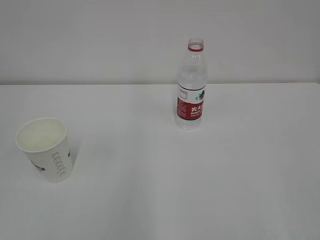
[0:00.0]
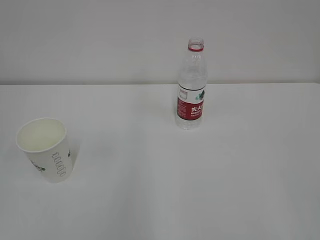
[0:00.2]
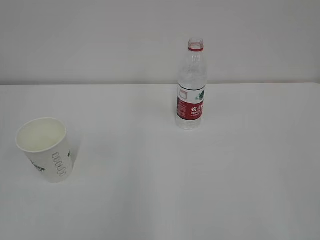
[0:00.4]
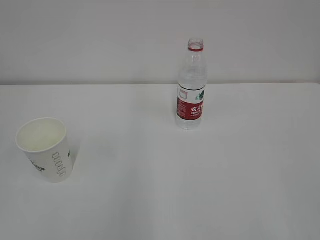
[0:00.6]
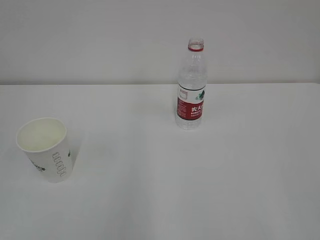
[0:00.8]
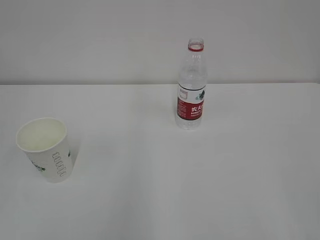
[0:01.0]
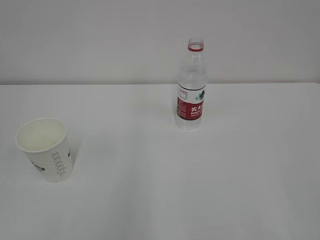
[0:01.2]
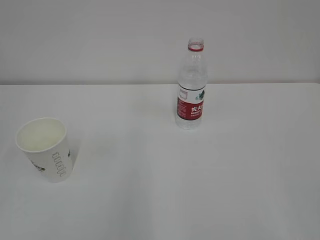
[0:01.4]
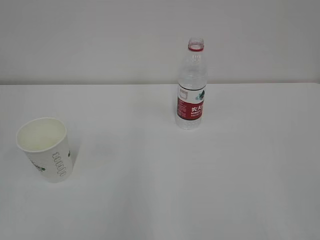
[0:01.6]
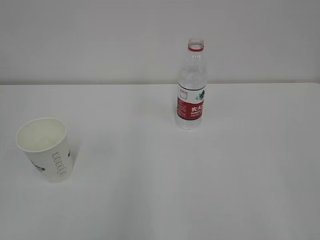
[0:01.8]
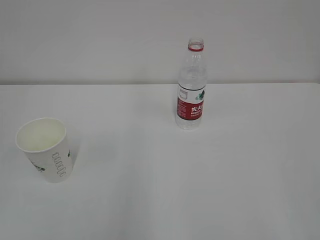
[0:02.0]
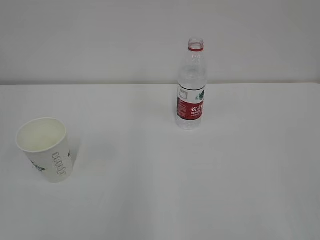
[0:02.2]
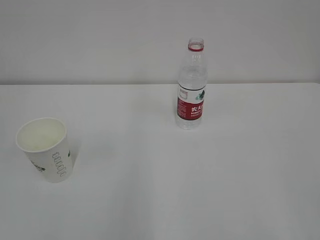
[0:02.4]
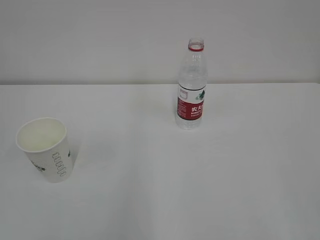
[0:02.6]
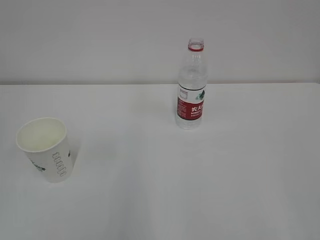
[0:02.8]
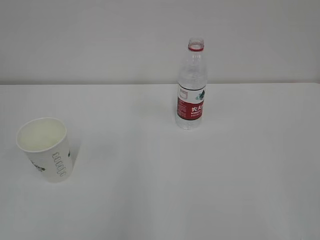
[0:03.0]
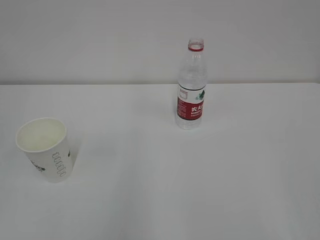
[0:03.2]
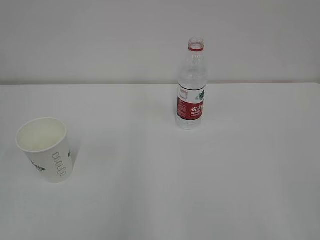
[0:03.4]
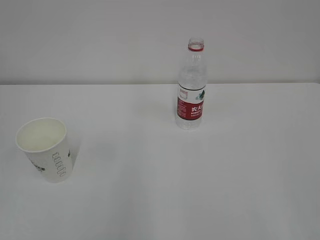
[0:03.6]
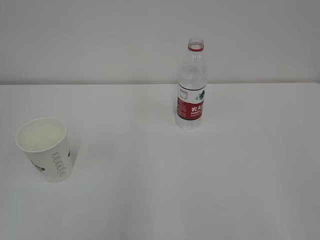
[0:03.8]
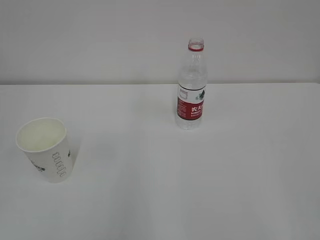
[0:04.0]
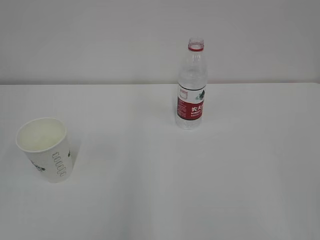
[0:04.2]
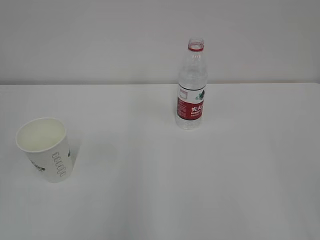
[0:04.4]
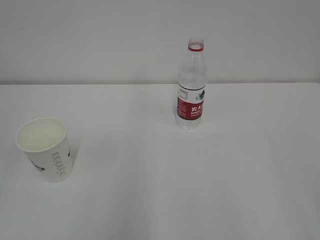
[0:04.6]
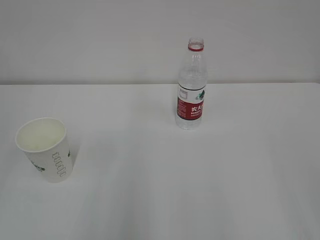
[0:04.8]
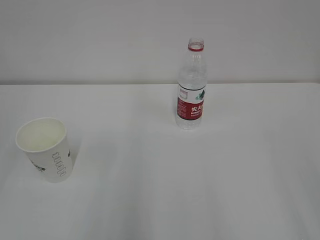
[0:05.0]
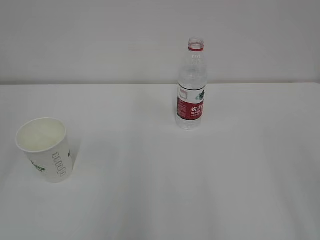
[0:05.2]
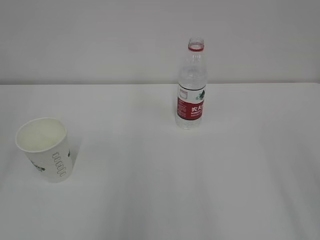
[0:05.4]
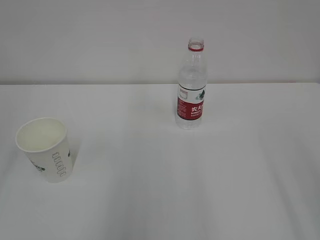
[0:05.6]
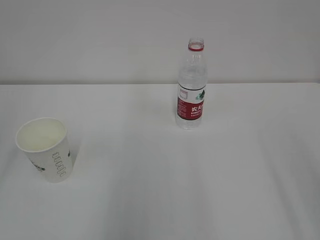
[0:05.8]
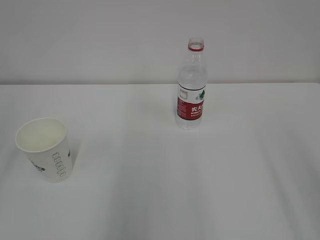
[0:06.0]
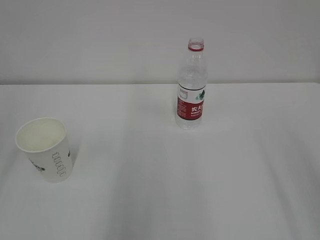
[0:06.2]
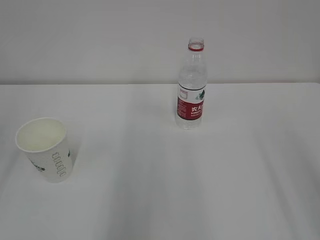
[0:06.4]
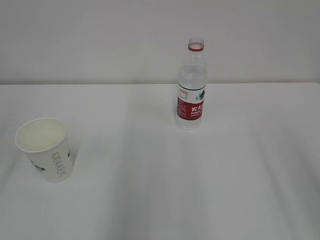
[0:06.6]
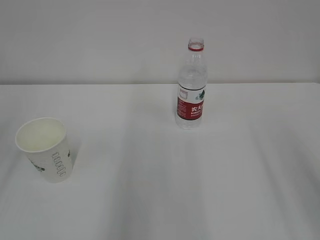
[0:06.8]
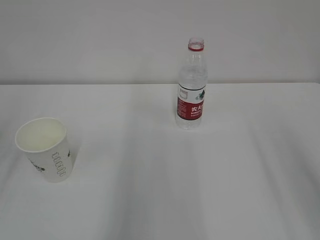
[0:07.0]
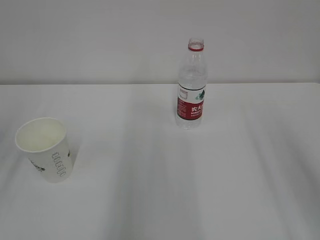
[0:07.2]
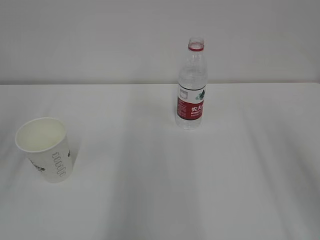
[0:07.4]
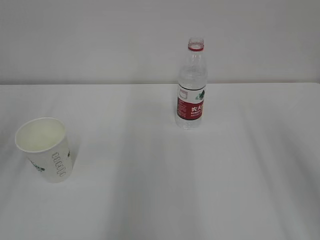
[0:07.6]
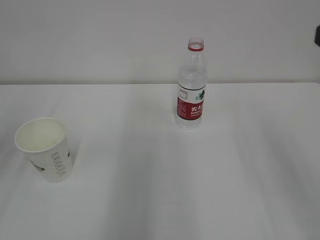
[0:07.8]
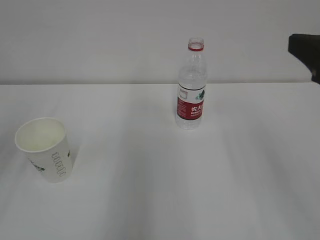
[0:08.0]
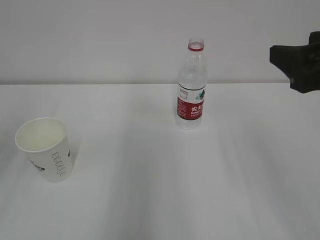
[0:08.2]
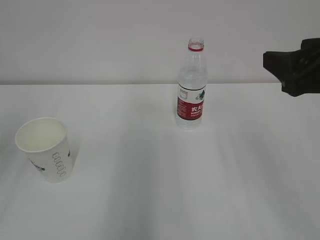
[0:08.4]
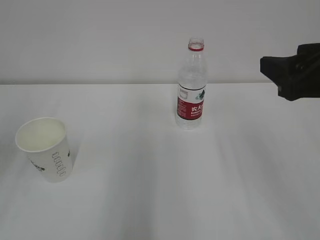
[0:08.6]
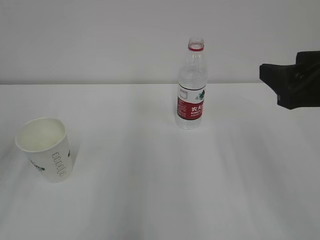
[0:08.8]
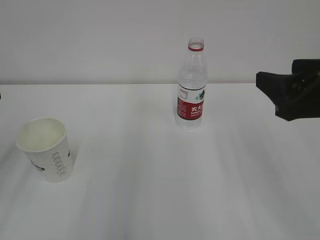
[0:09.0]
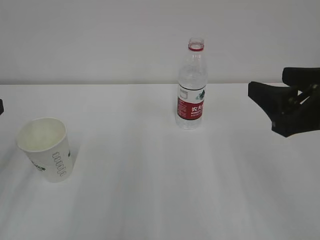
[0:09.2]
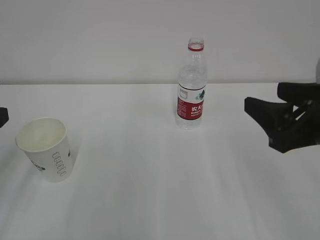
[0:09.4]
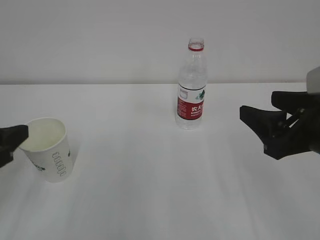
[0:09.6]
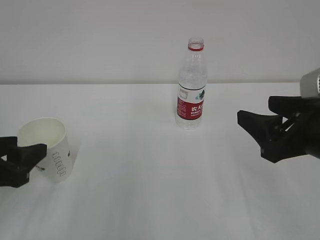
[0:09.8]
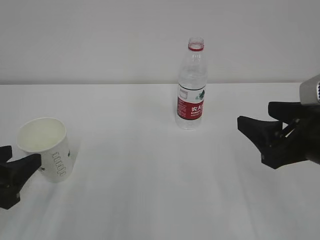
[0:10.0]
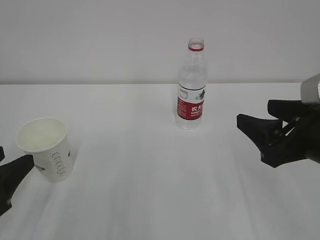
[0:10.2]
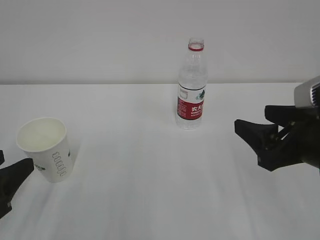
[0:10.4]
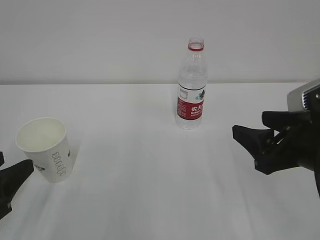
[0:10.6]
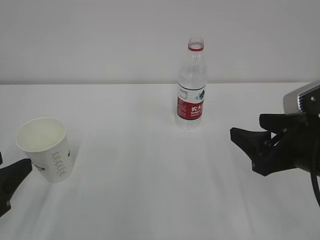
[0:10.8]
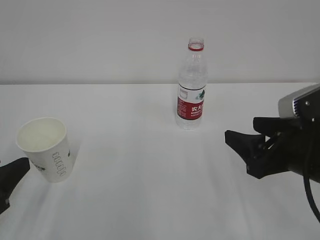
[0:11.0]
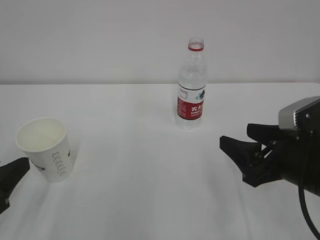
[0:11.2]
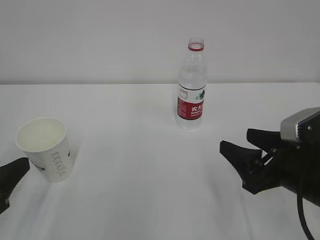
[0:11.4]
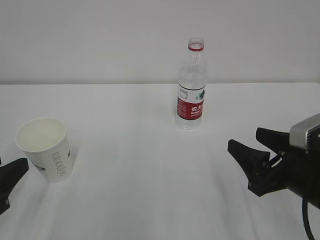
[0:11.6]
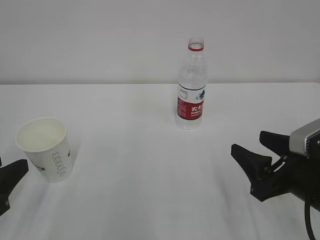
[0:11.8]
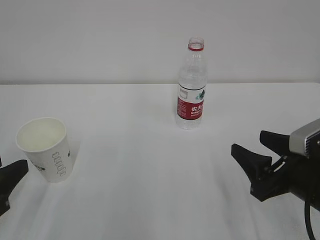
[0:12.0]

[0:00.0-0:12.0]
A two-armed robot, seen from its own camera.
0:01.6 to 0:03.0: Neither gripper changes place.
0:07.6 to 0:09.0: The right gripper shifts some 5 cm downward.
0:09.0 to 0:10.4: The right gripper goes roughly 5 cm downward. The left gripper shifts roughly 10 cm downward.
0:10.4 to 0:12.0: The right gripper travels downward by some 5 cm.

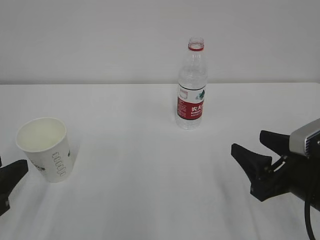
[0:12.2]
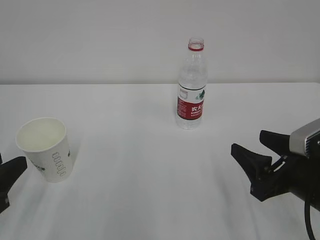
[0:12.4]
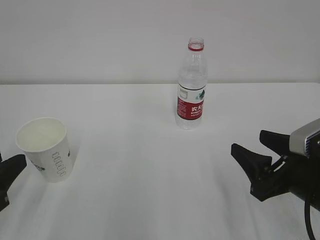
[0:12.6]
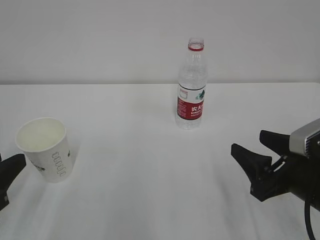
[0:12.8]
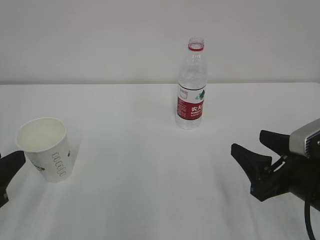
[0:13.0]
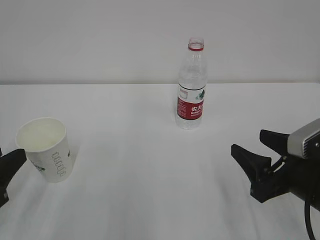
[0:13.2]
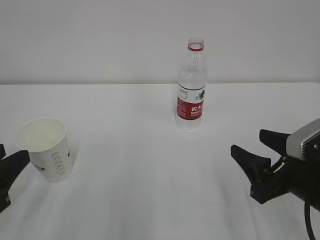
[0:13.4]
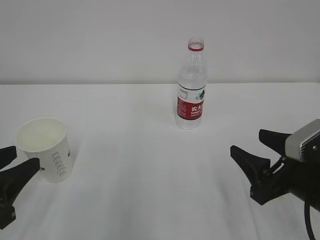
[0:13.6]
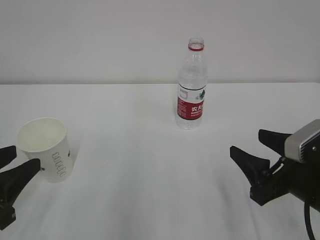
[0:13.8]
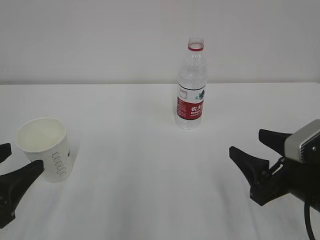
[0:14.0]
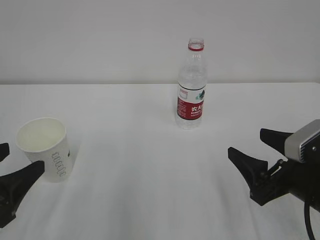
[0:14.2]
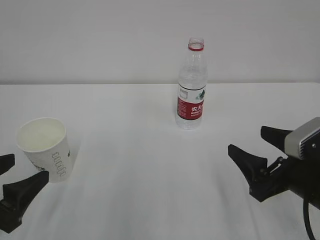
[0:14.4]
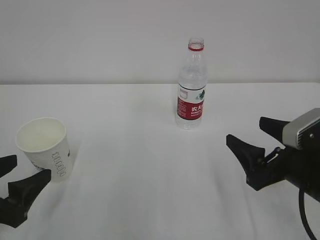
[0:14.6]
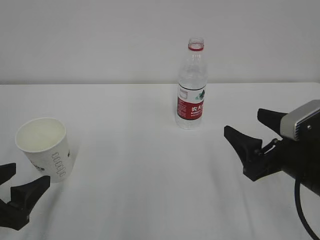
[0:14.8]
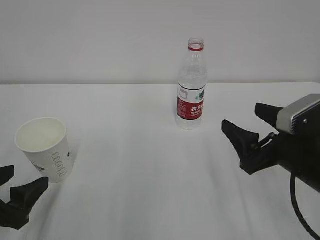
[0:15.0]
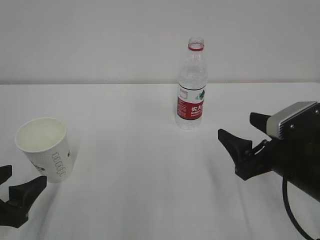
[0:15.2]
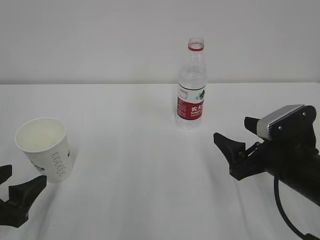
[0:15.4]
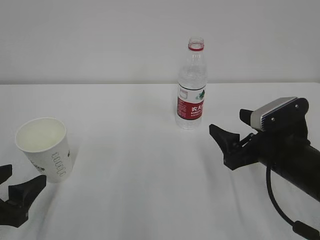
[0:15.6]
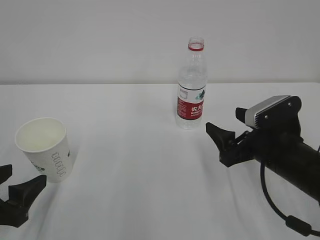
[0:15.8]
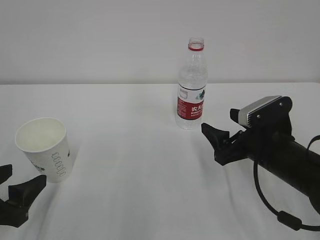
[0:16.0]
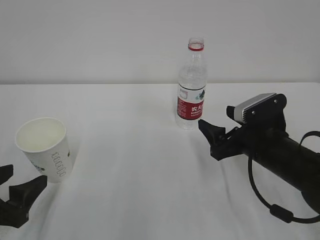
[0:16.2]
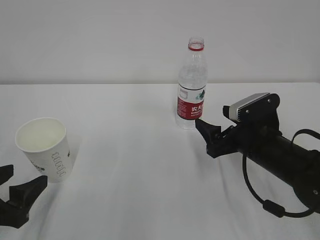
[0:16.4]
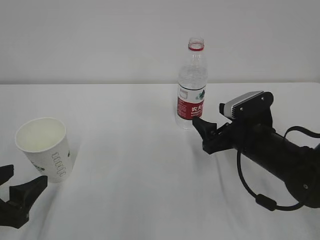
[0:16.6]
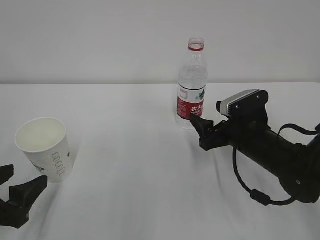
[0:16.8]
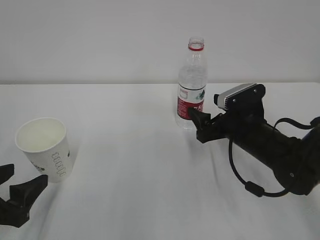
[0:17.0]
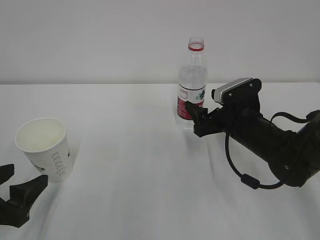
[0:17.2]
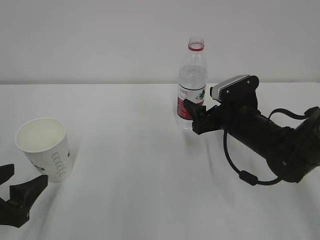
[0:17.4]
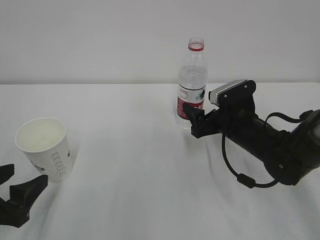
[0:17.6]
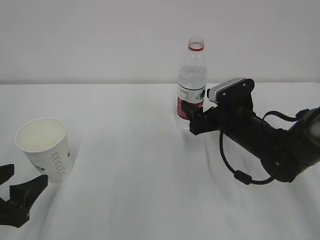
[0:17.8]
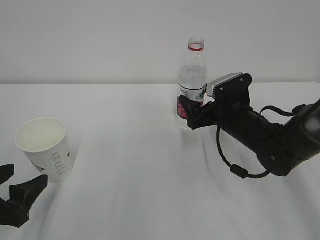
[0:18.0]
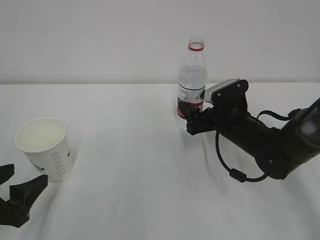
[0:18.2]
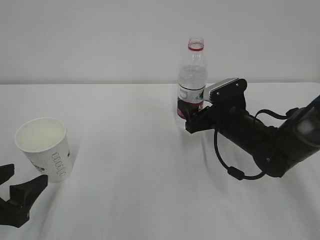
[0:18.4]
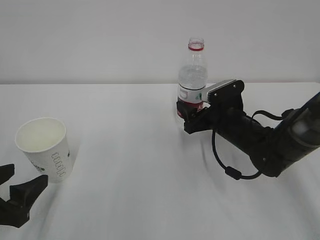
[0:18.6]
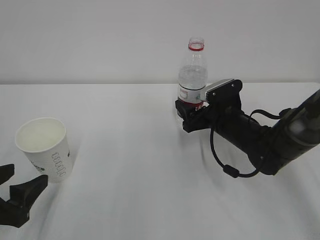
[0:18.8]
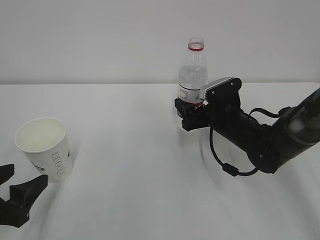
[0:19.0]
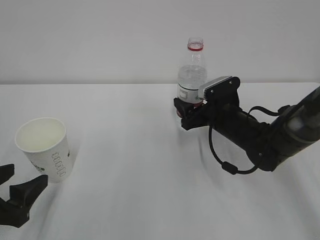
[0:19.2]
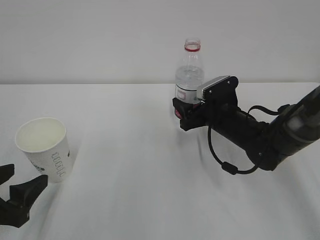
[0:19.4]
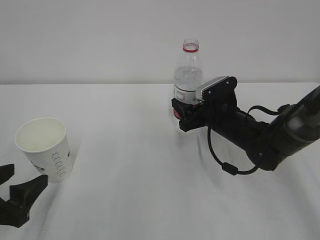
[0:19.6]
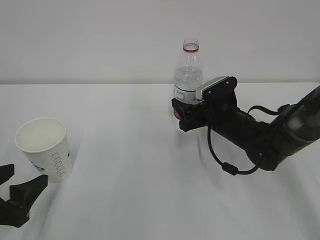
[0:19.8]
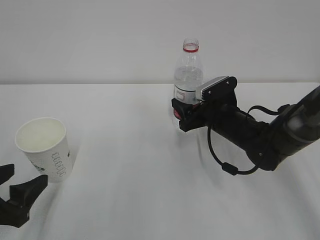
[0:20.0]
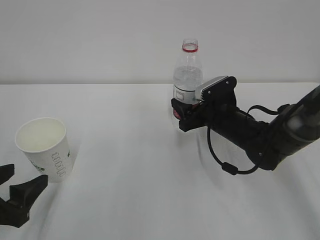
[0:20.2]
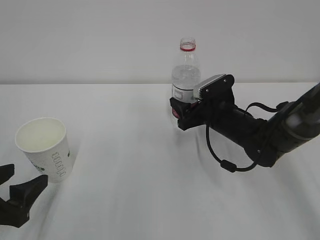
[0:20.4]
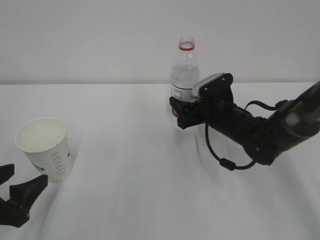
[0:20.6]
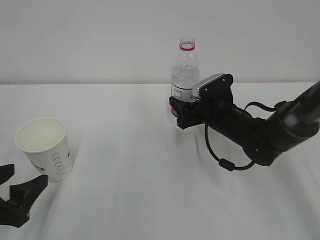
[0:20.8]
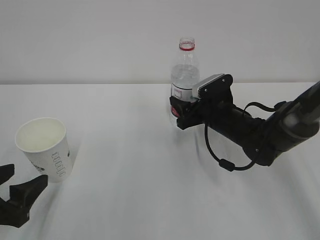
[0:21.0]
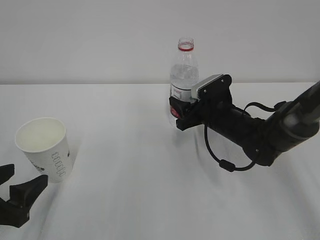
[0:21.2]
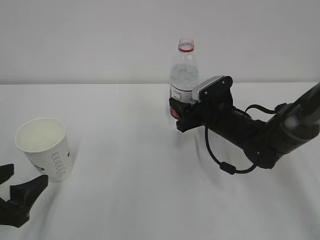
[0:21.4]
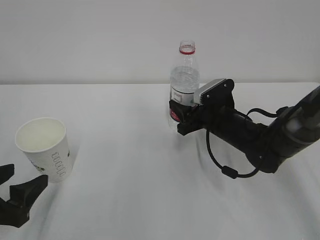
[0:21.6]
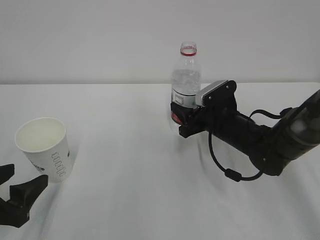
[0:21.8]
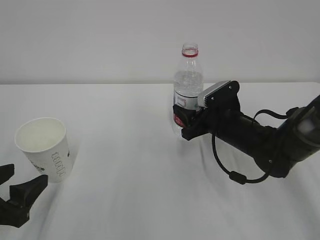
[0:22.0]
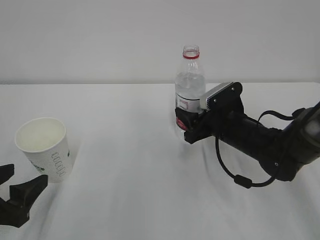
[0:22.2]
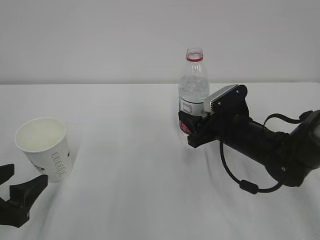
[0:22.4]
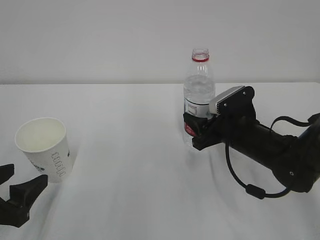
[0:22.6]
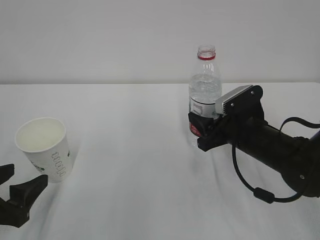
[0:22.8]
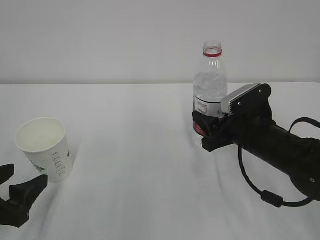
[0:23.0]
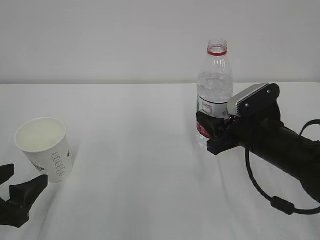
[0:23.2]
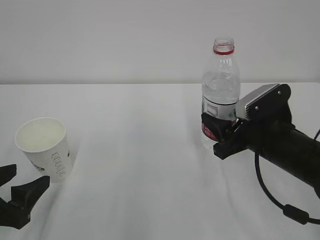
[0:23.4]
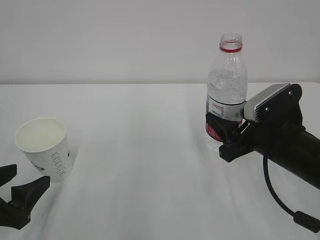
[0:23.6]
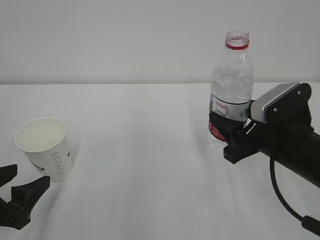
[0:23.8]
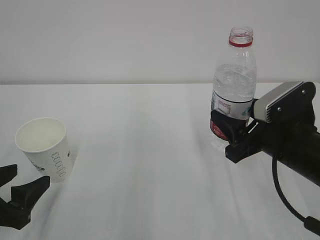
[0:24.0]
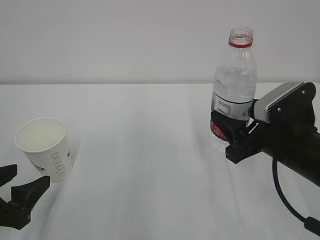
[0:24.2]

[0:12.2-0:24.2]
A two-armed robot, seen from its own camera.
0:12.2 to 0:13.8: There are only small adjustments of the grippers.
0:13.8 to 0:15.2: The left gripper opens its fingers. Meanwhile the right gripper opens.
0:15.2 to 0:16.6: The right gripper shifts roughly 10 cm forward.
0:16.6 to 0:18.2: The right gripper moves forward, roughly 5 cm.
0:18.2 to 0:19.8: The right gripper closes.
0:19.8 to 0:21.2: The right gripper closes.
0:21.2 to 0:22.6: The right gripper shifts some 5 cm backward.
0:22.6 to 0:24.2: The right gripper travels backward and upward by roughly 10 cm.
